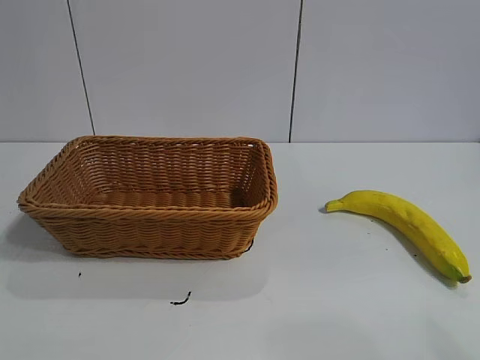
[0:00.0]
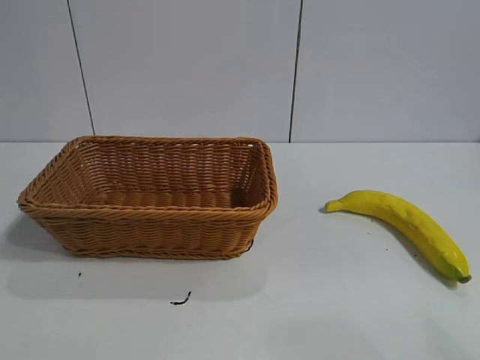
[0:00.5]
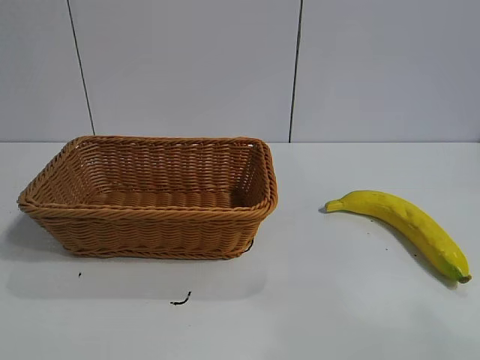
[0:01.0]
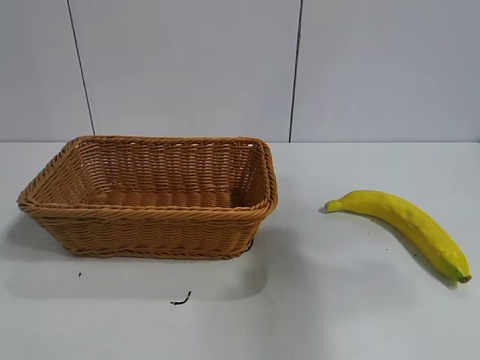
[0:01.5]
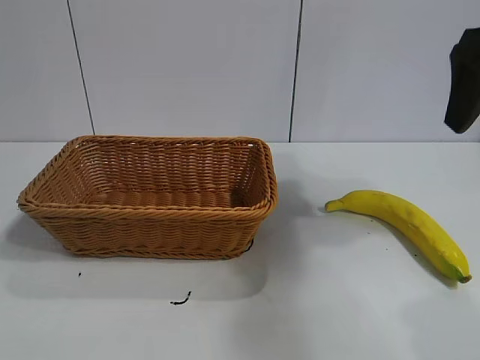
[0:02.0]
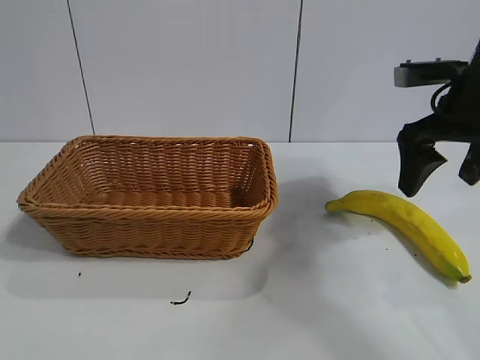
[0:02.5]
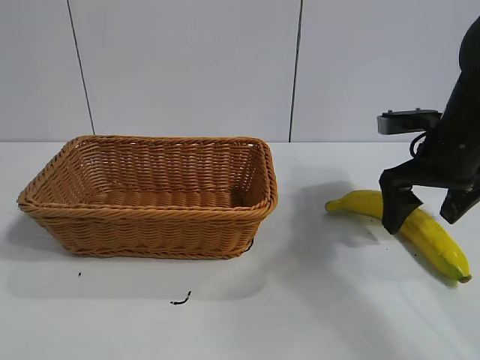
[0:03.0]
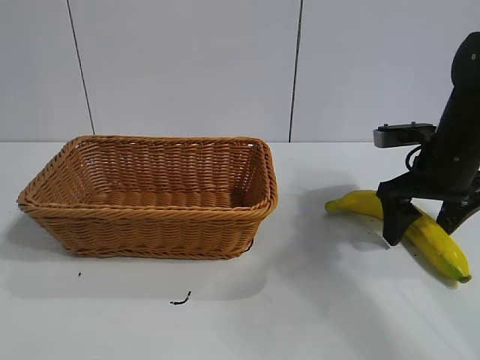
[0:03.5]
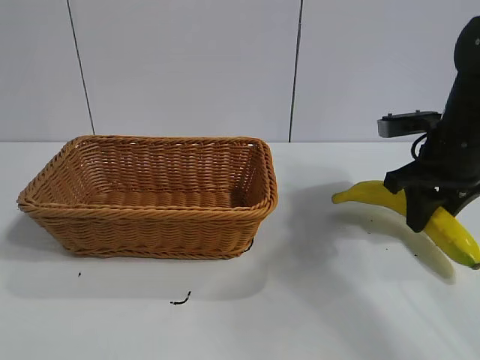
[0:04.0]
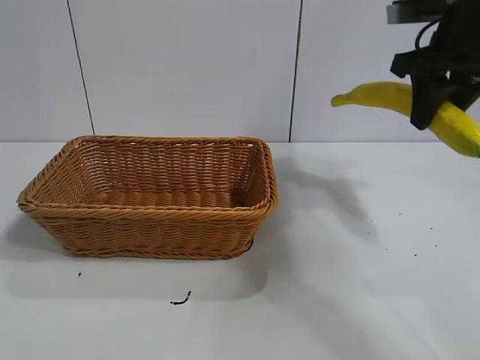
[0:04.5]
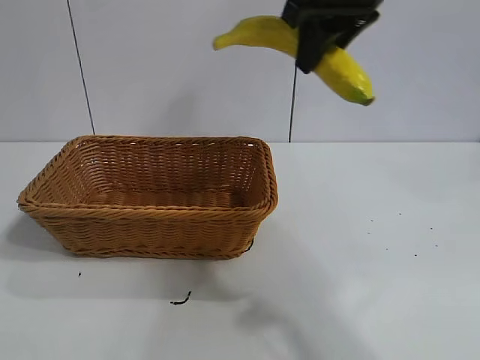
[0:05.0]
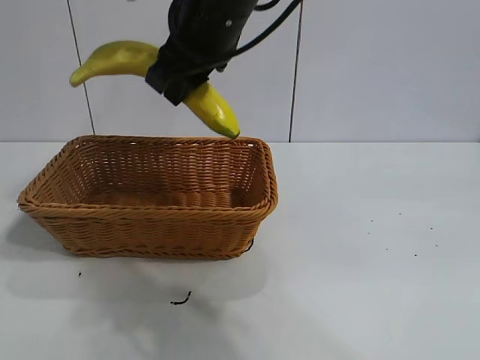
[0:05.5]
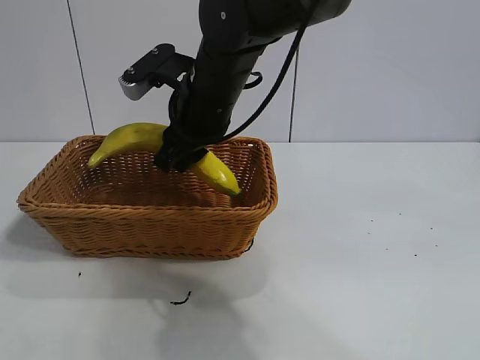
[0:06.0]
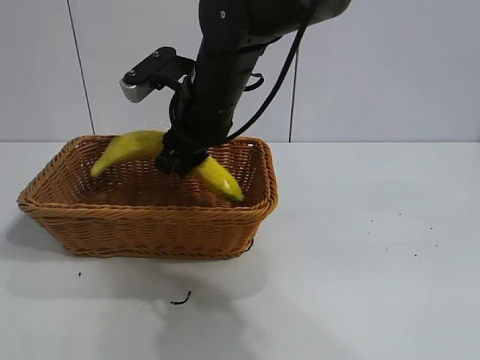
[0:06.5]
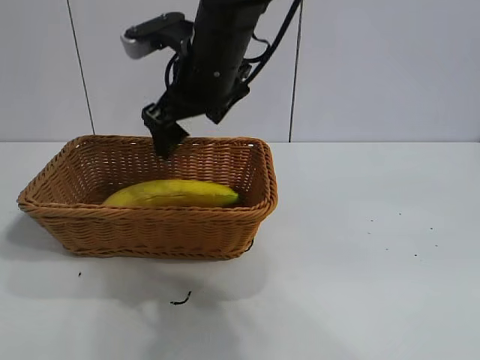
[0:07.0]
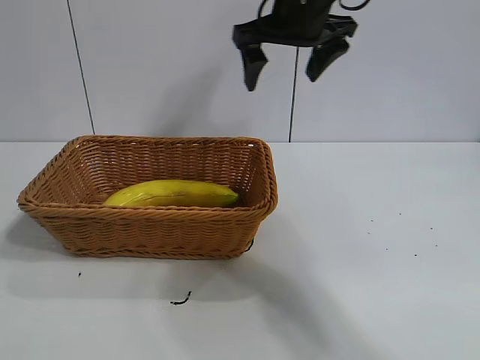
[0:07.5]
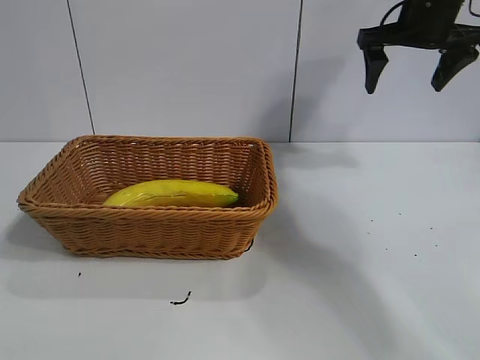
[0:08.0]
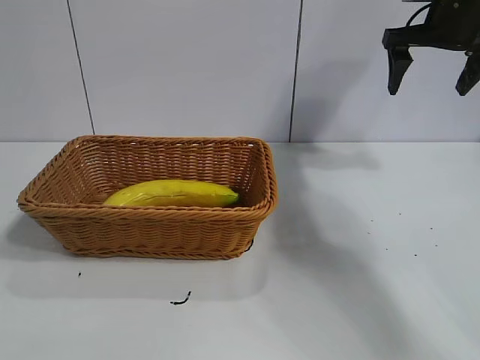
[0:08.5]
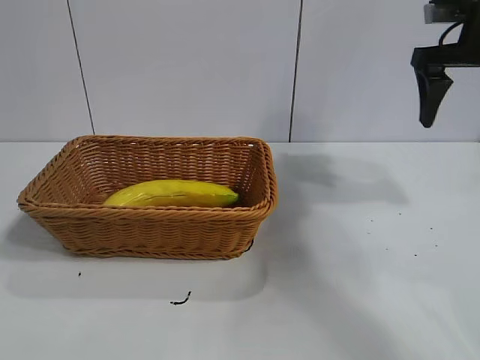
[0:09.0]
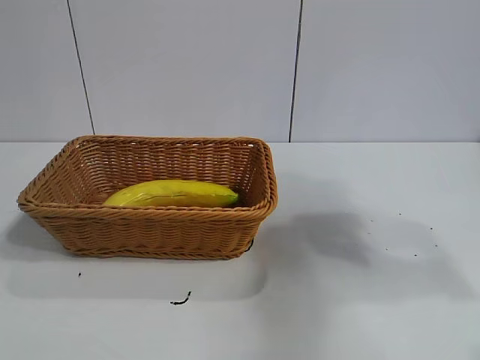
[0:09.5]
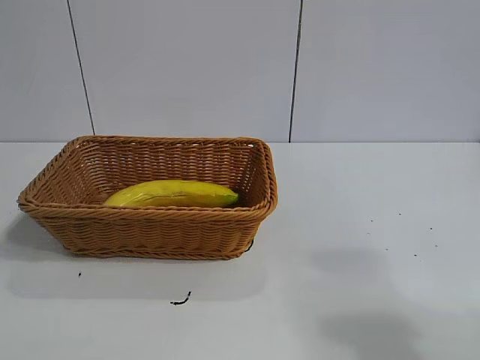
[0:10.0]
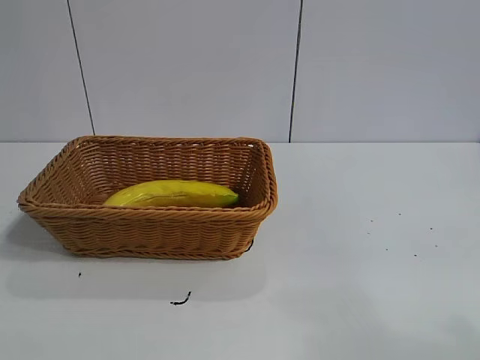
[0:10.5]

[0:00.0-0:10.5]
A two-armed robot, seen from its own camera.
Task of the whole recording: pick up the banana and put it into the basket.
Step, 0:02.0 to 0:03.5: Grasp the banana with right gripper.
Step, 0:04.5 to 0:06.5: Place the banana in the basket with right gripper.

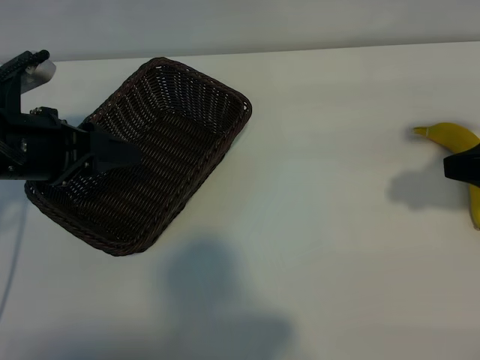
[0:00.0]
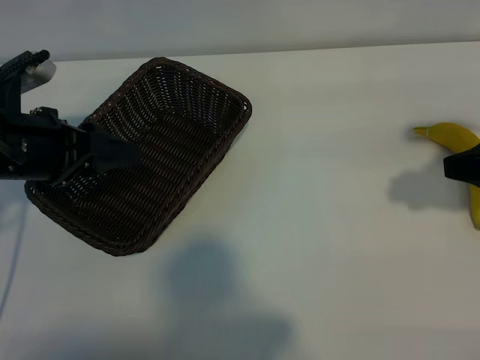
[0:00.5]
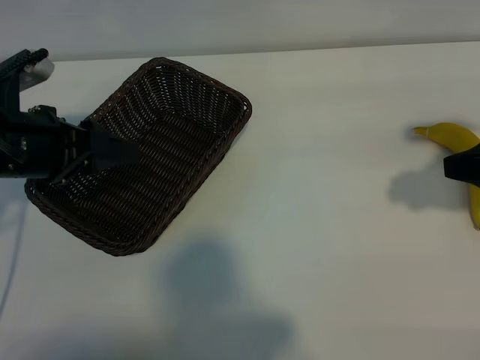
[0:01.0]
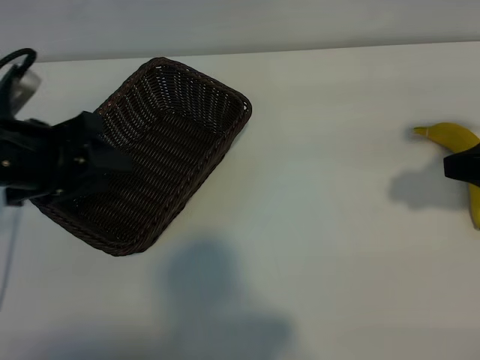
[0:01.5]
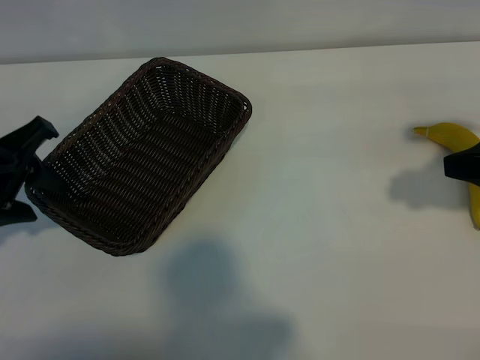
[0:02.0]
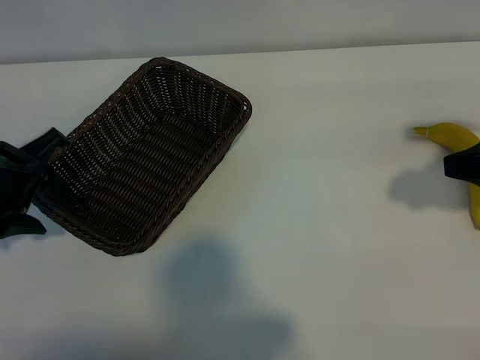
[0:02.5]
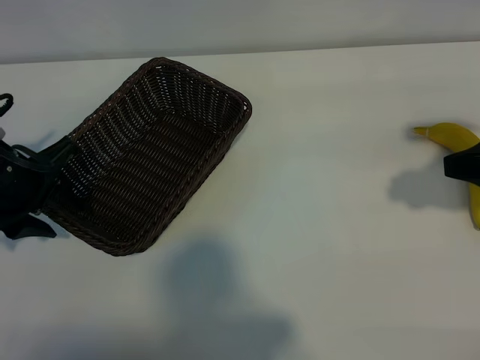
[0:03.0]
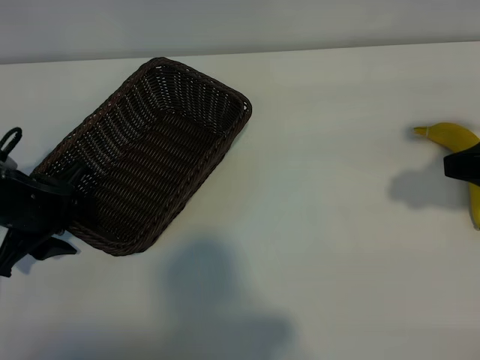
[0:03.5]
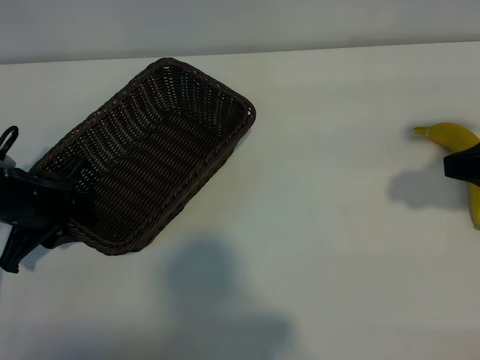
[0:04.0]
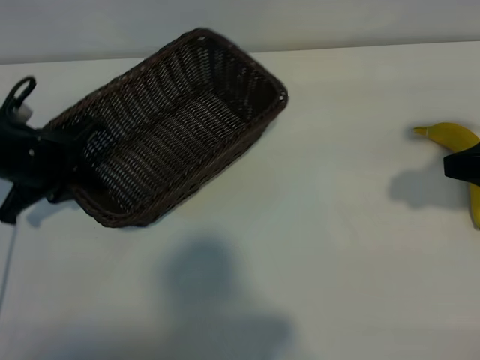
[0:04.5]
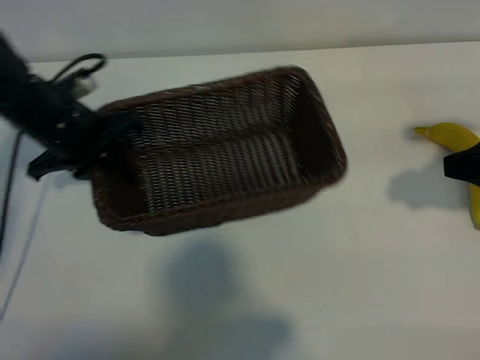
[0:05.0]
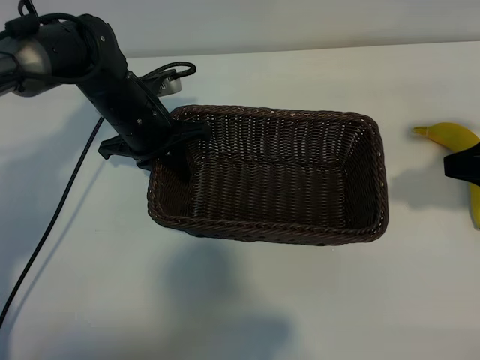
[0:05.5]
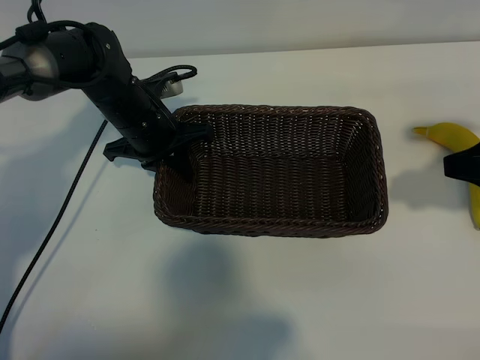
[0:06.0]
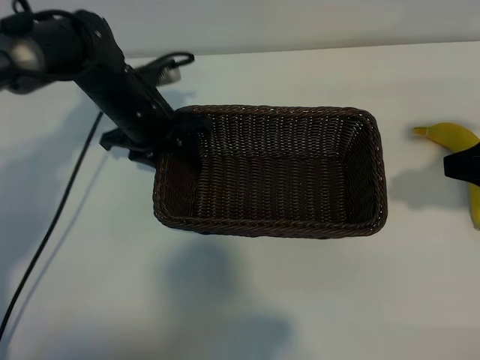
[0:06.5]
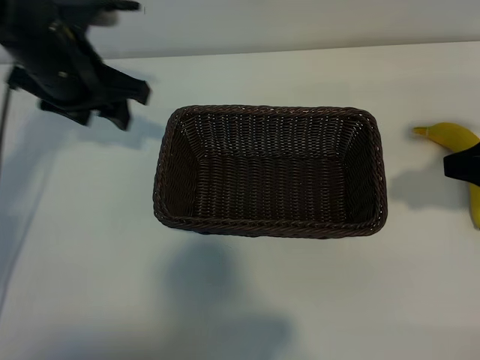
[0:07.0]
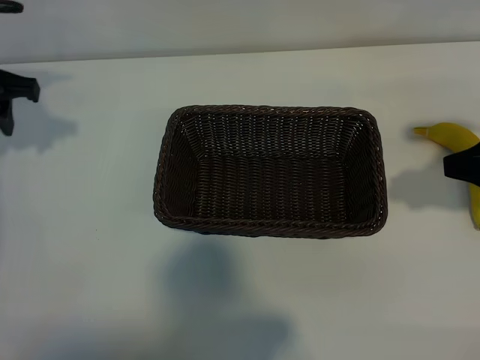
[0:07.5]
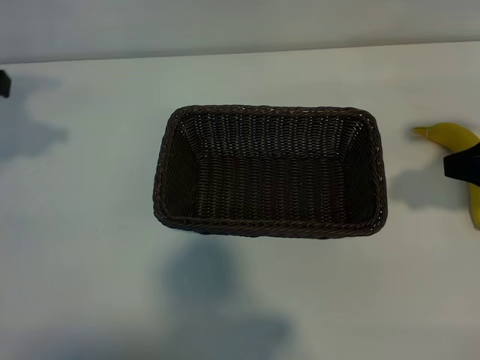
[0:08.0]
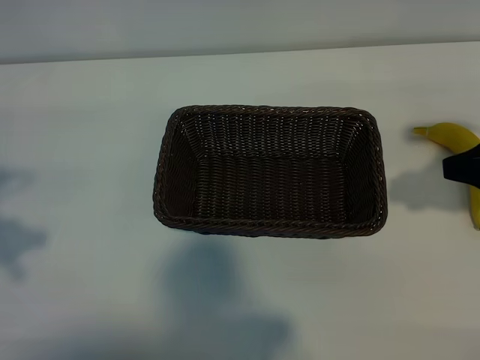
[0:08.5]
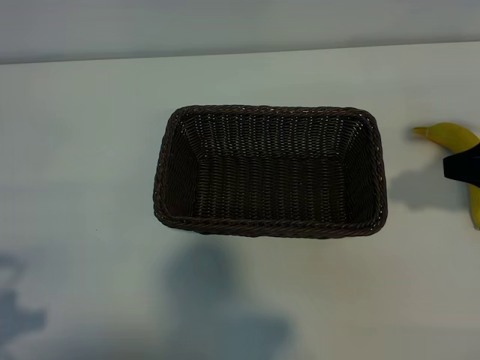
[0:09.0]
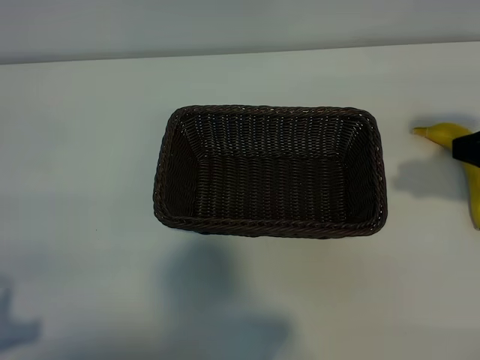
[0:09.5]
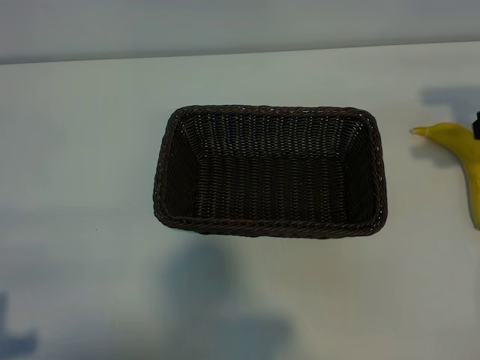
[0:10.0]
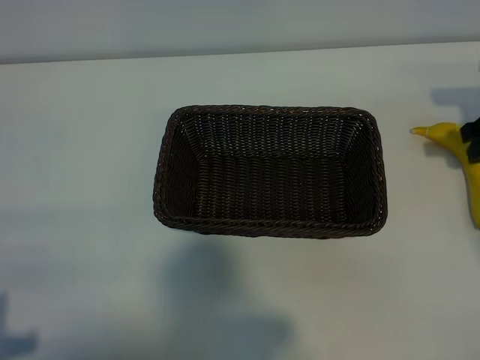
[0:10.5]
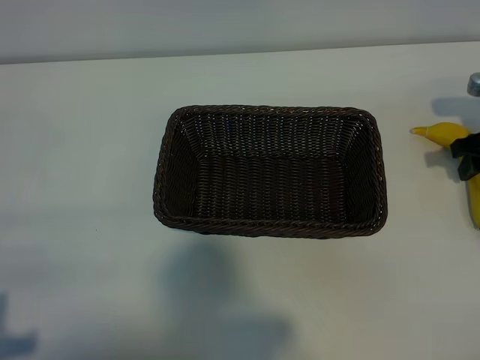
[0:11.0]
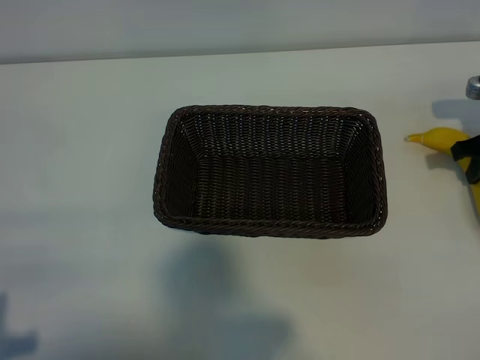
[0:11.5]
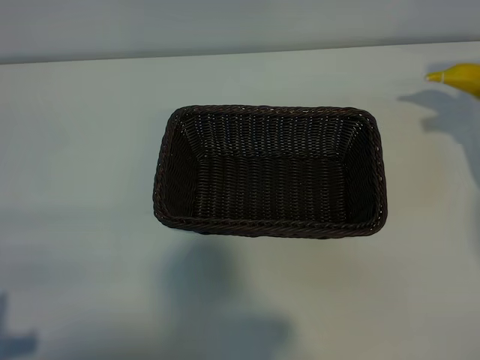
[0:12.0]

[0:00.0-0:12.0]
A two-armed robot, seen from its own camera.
Task of the whole recording: pick up the banana and put it into the basket.
Step, 0:01.0 to 0:04.0: Grasp the basket with the left gripper.
Step, 0:04.5 to 0:06.5: Place the basket in the center of the table with the left gripper.
Step, 0:07.0 to 0:11.0: Grasp the banana with right gripper.
